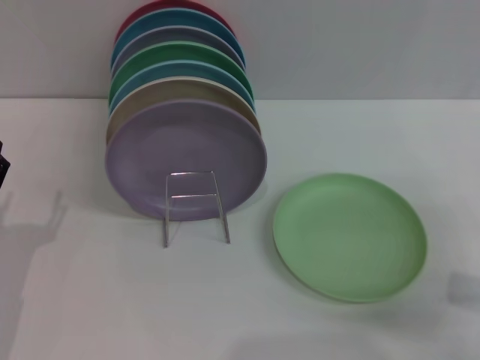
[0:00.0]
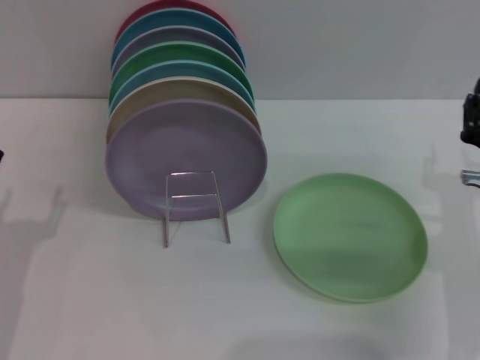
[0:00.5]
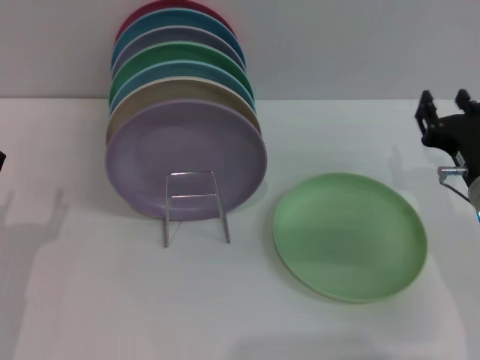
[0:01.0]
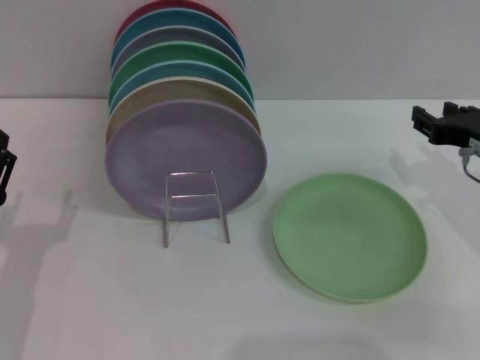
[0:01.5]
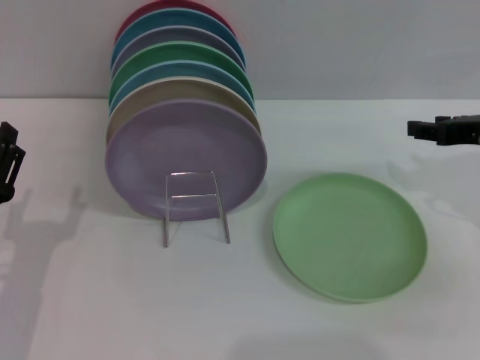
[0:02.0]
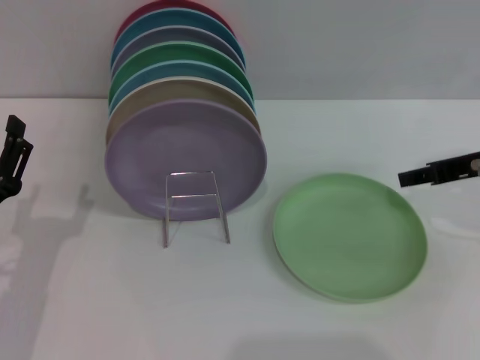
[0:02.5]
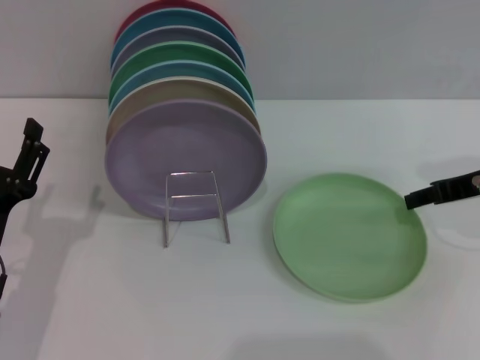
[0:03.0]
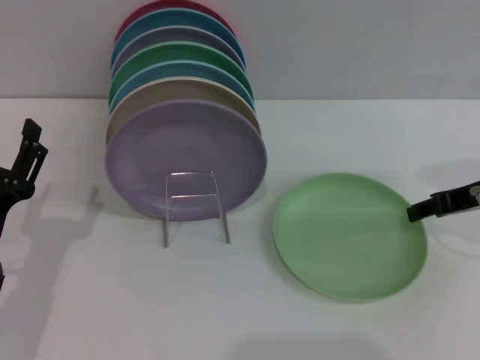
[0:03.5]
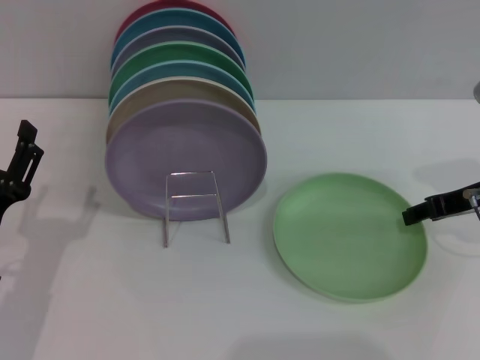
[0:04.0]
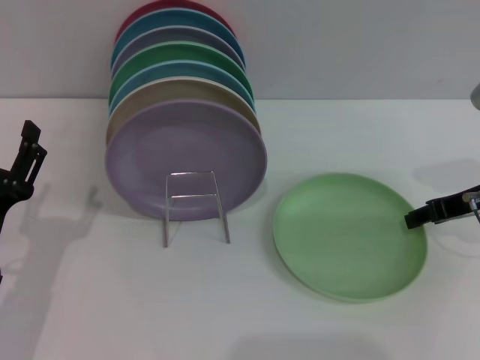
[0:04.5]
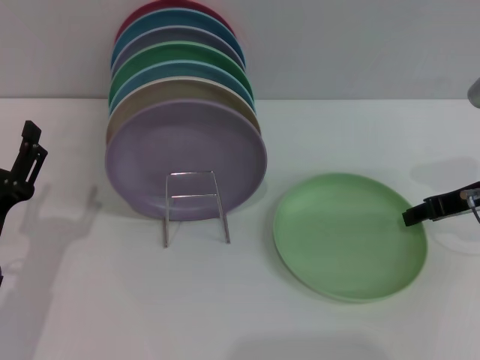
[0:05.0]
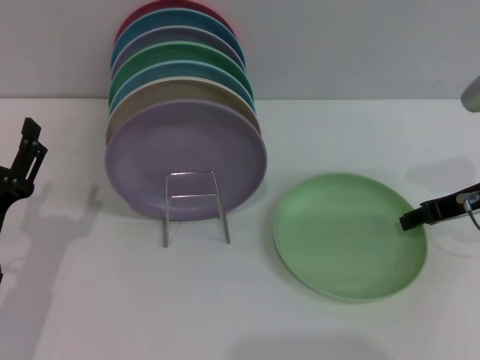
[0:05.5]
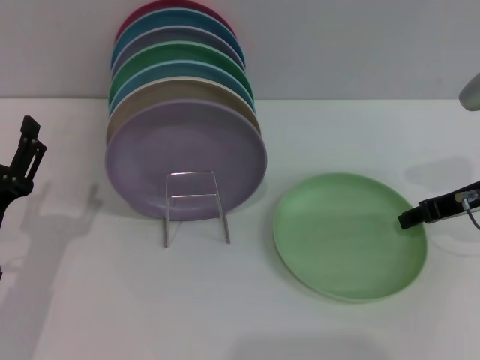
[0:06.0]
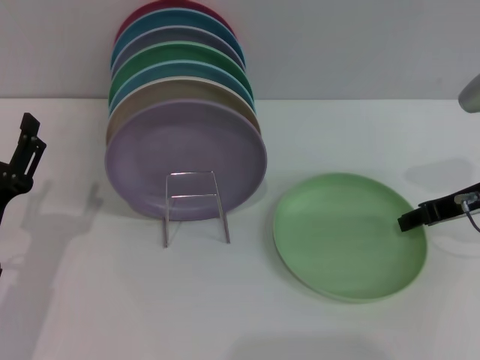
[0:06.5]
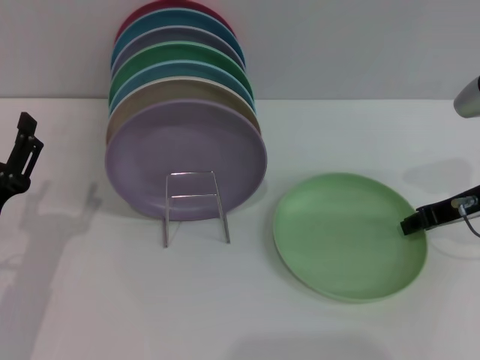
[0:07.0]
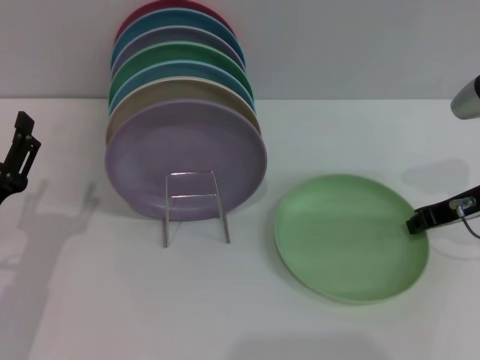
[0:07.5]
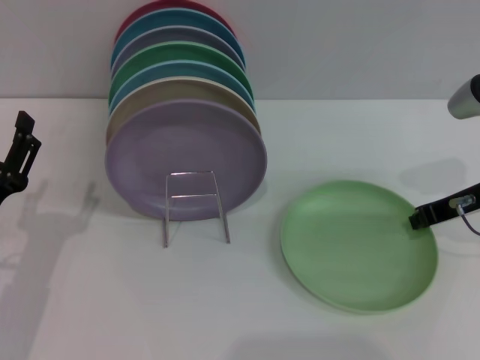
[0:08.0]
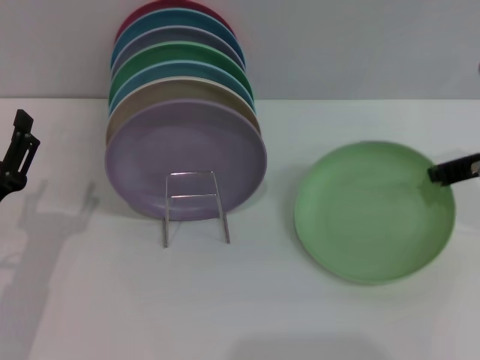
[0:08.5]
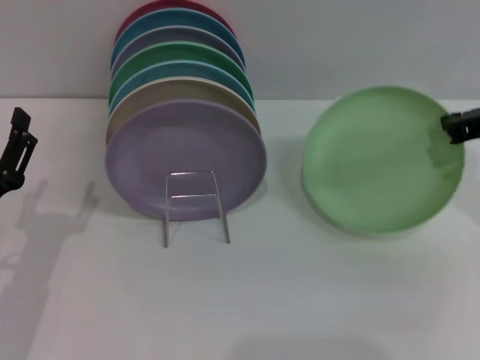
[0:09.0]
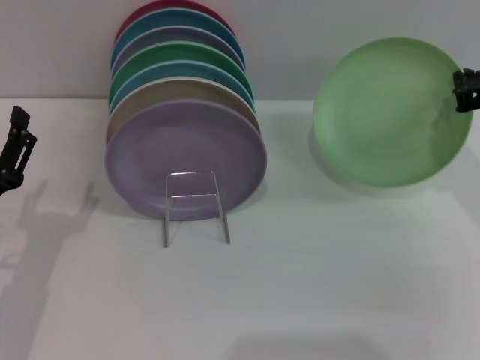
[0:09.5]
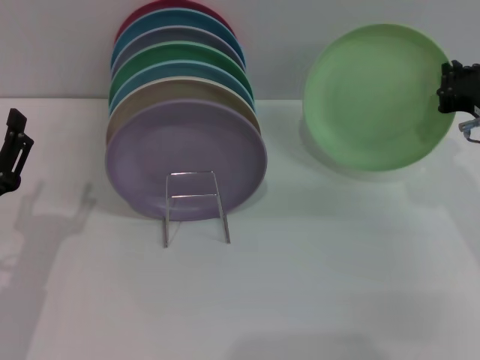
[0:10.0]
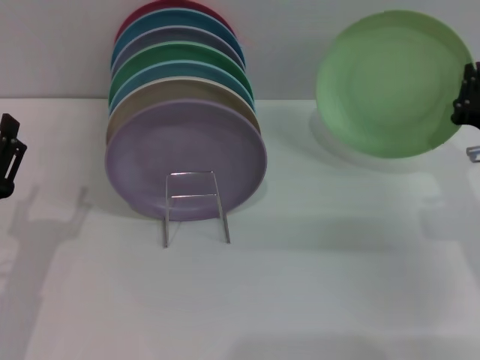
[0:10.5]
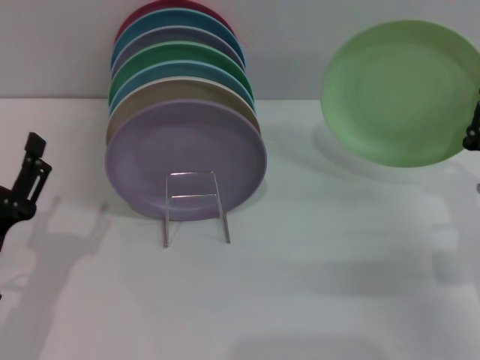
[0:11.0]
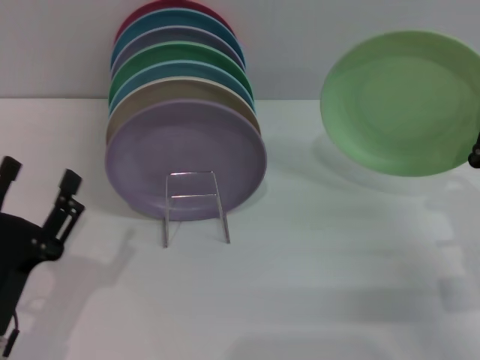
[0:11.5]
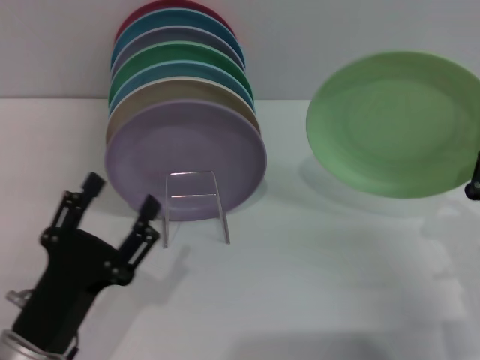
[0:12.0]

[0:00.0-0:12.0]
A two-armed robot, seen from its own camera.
Task of the whole recording: Grip the plate with one hand, pass it to the other, then set it on the shelf.
Step, 0:00.0 to 0:09.0: Pick up the plate with the right gripper.
0:00.0 to 0:02.0: The right gripper is displaced upward and forward by about 15 cm.
0:04.0 to 0:06.0: The two grippers keep their place.
0:06.0 to 0:08.0: The right gripper closes up.
0:10.0 to 0:12.0: The left gripper goes some 10 cm backward and to the right. Meanwhile the right gripper is displaced backward and downward by about 15 cm.

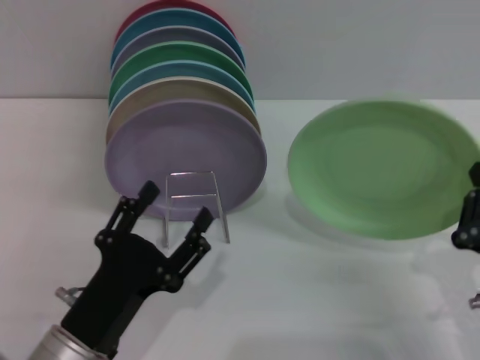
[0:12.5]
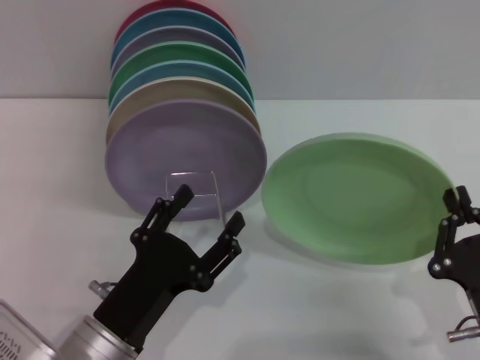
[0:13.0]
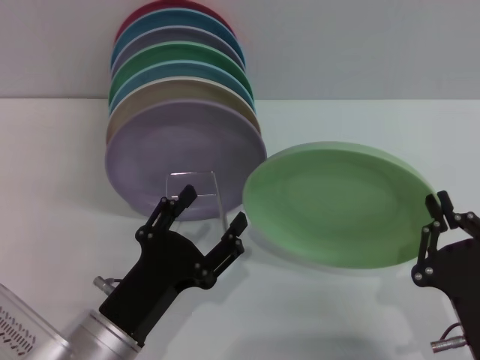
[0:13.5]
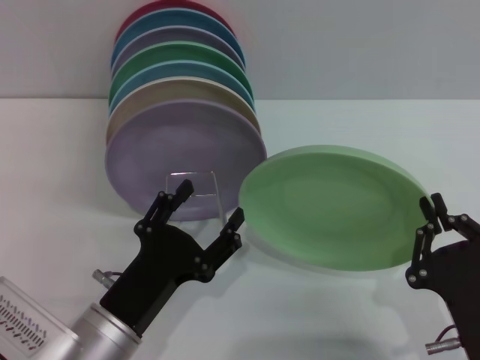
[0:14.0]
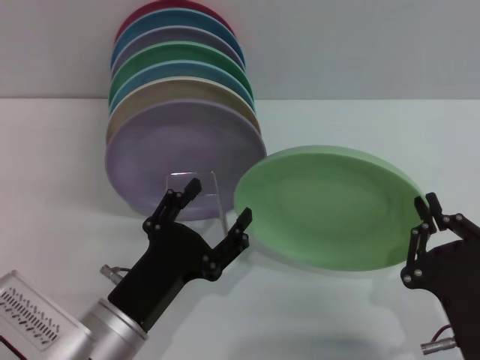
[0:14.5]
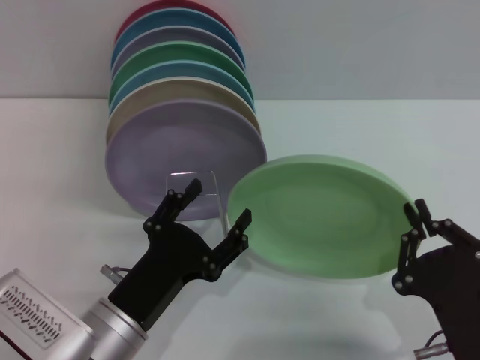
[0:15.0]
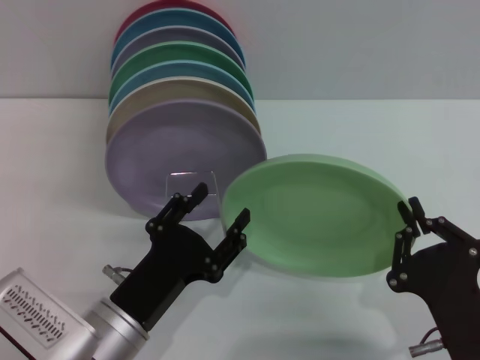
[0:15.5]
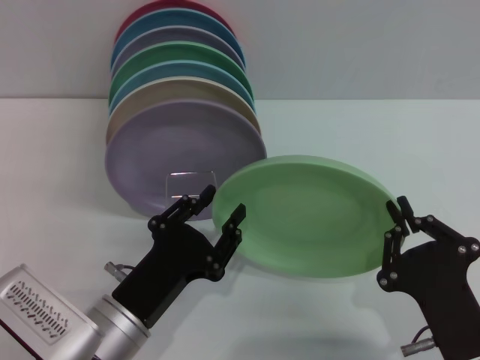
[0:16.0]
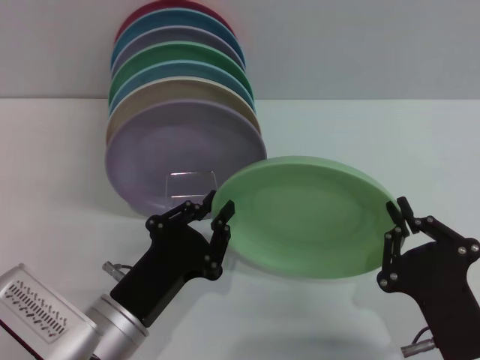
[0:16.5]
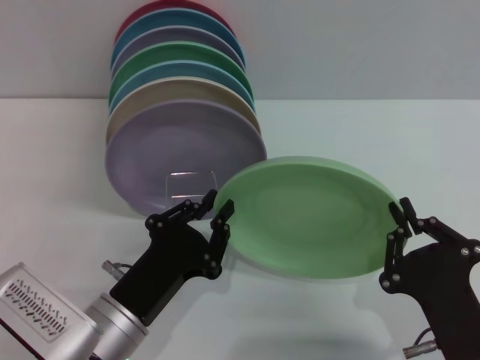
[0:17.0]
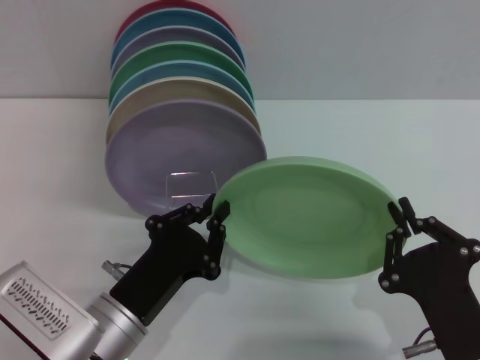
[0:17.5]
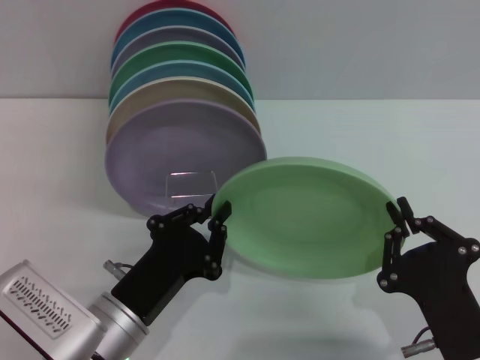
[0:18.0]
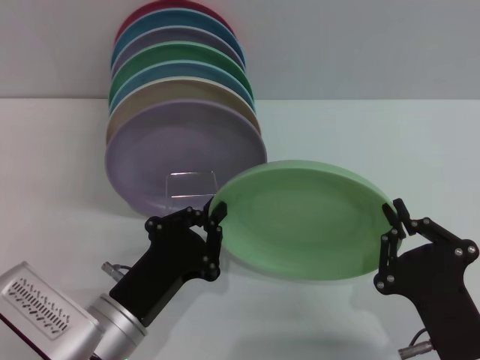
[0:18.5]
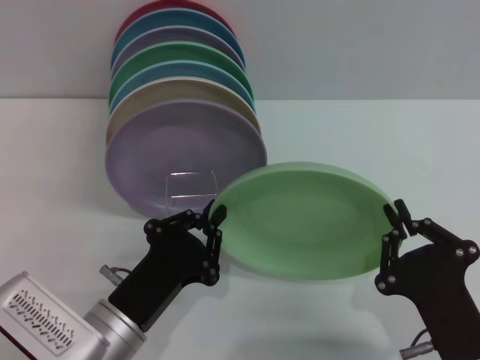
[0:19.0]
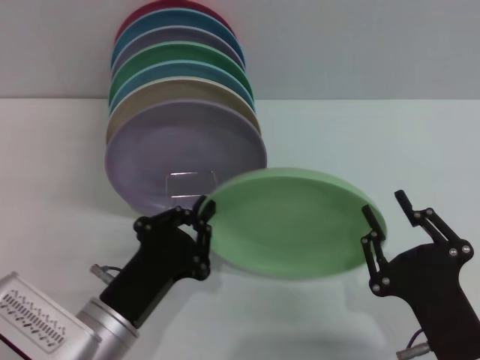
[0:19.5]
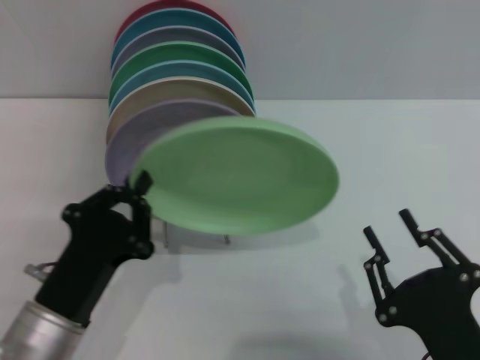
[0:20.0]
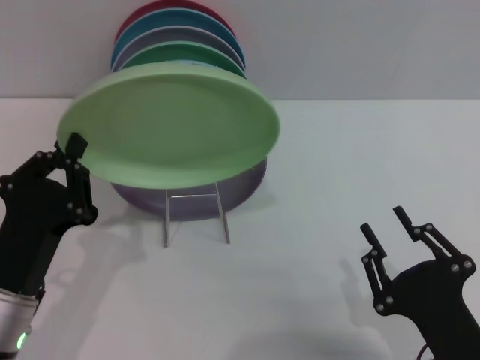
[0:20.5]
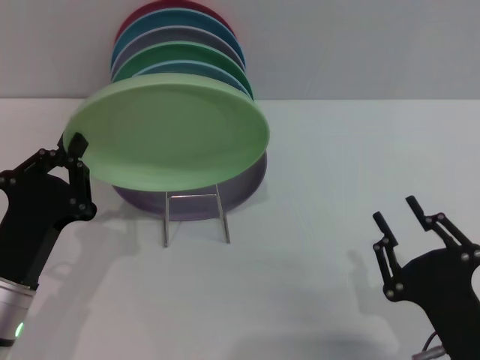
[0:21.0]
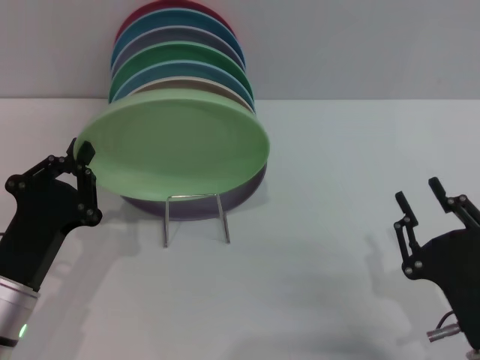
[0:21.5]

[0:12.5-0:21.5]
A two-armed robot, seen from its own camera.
Task of the whole recording: Grip the plate with one hand, pass it to the other, then set it on the shelf.
Step, 0:12.5 to 0:19.5: Pass the plate from the right gripper to the left gripper.
0:12.5 to 0:14.5: The right gripper changes place by approximately 5 cm.
0:14.5 to 0:17.0: The left gripper closes.
0:17.0 to 0:19.5: Both grippers stay about where they are.
0:19.5 to 0:21.5: The left gripper travels to the left by some 5 cm. Meanwhile the right gripper opens up.

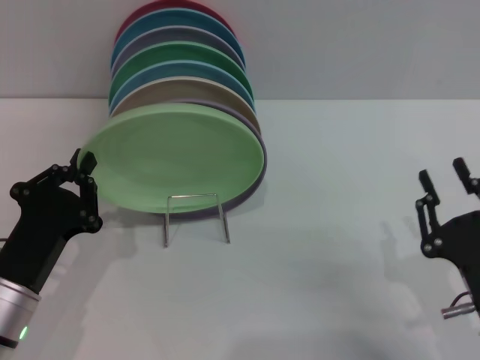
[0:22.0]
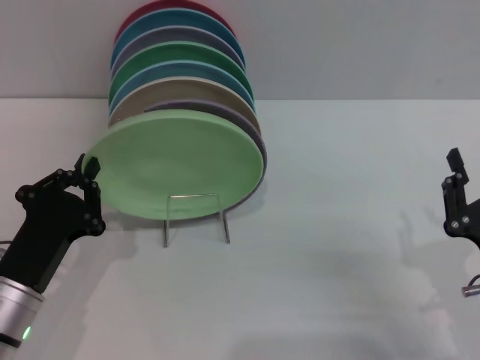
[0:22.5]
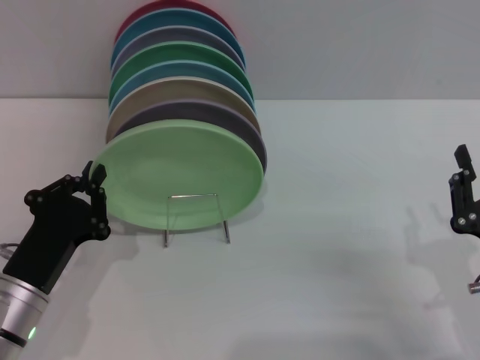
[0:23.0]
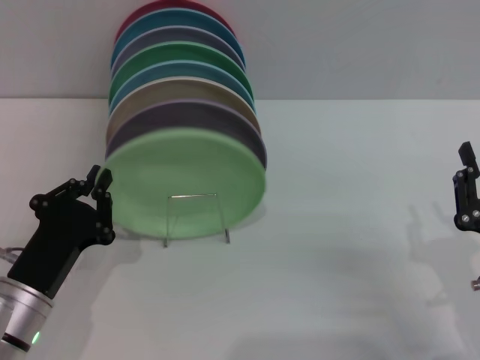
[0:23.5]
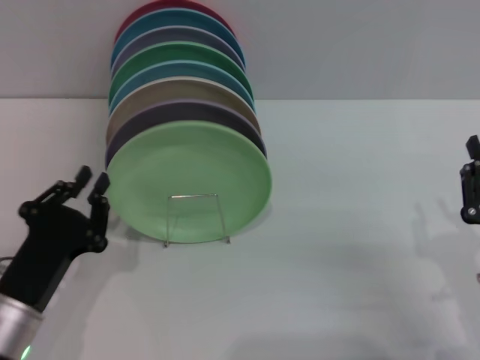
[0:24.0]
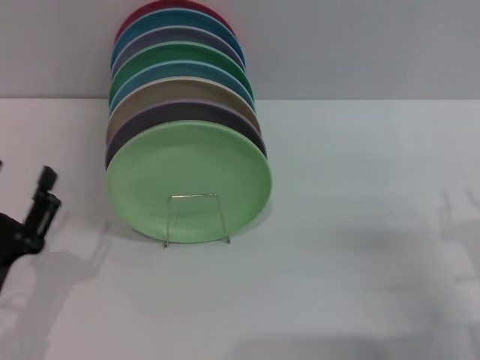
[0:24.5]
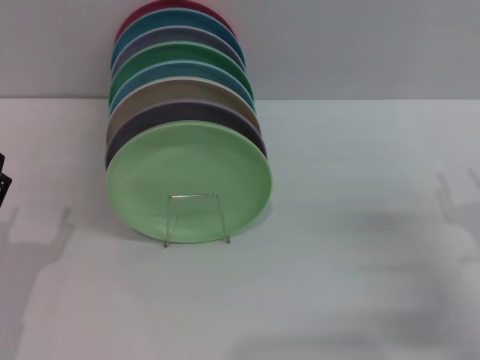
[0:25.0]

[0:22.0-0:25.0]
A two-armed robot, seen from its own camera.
Task of the whole recording: Grip the plate with one hand, pass it to the other, then set it on the shelf.
0:22.0 to 0:23.5: The grippers make only small movements.
0:23.5 to 0:25.0: The right gripper is displaced to the right and forward by approximately 10 cm, while the left gripper is displaced to the left by about 5 cm, and opens.

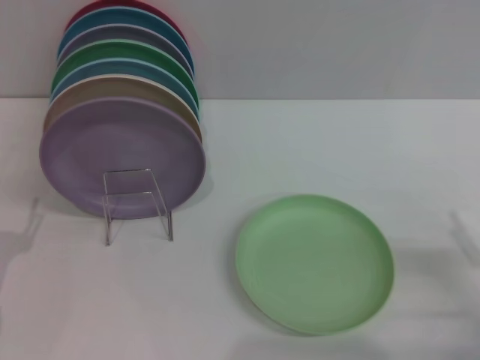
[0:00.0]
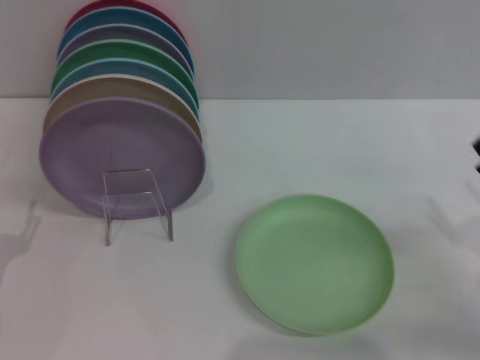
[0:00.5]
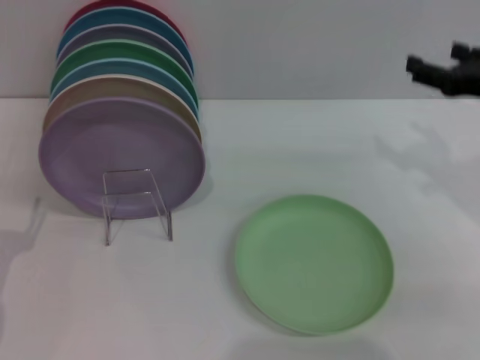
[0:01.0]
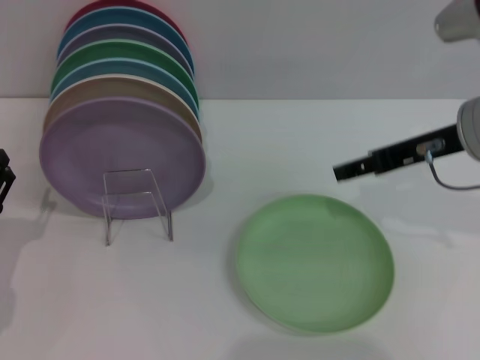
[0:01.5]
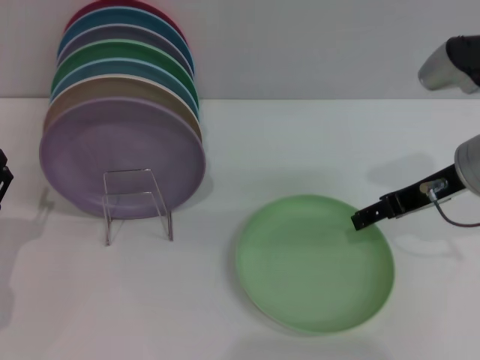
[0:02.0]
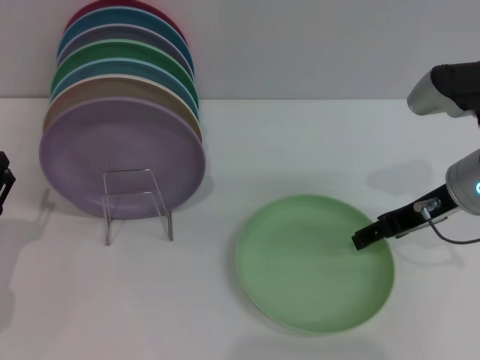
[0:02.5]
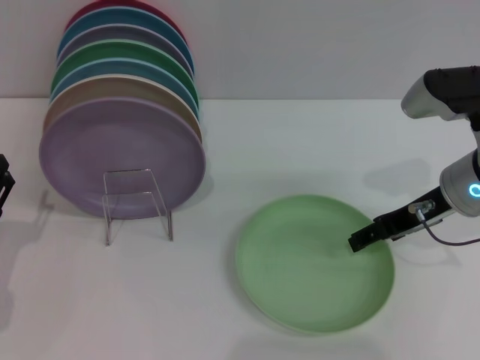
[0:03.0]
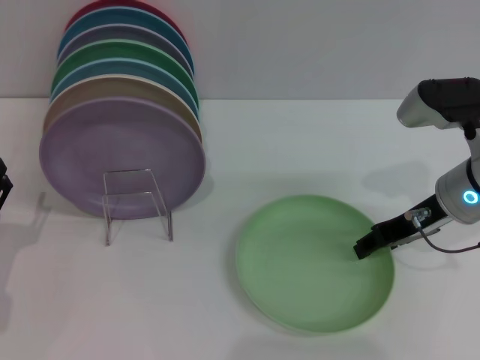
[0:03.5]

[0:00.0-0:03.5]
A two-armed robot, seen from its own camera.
Task of the whole recording: Grip the plate with one hand, pass it to the other, then set it on the shelf.
0:00.0 to 0:02.0: The right gripper is displaced forward, upward and to the left by some 25 cm.
0:02.0 to 0:03.5: The grippers stay close to where they were, moving slightly.
